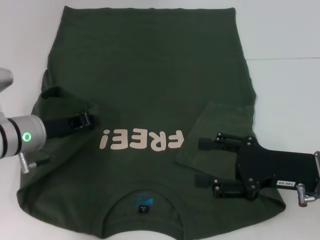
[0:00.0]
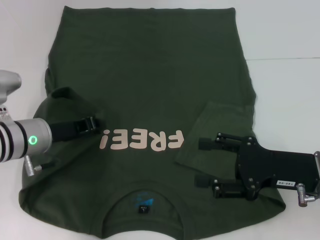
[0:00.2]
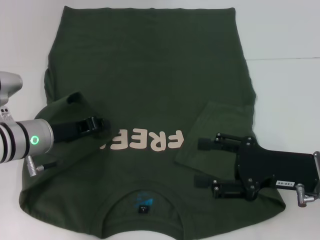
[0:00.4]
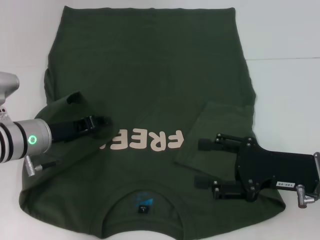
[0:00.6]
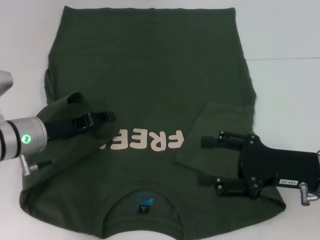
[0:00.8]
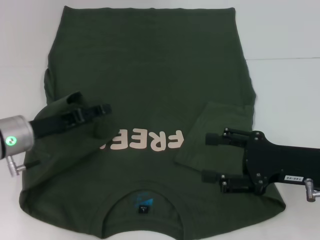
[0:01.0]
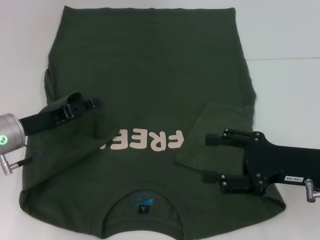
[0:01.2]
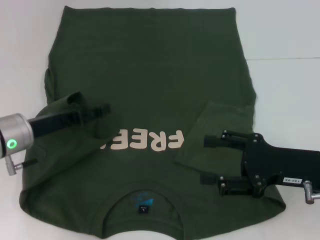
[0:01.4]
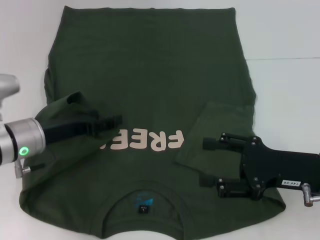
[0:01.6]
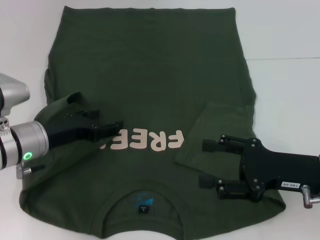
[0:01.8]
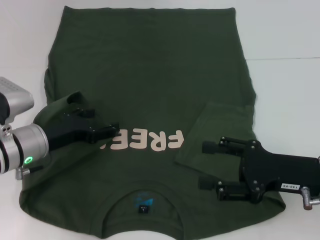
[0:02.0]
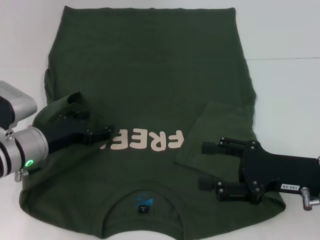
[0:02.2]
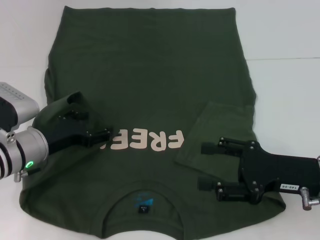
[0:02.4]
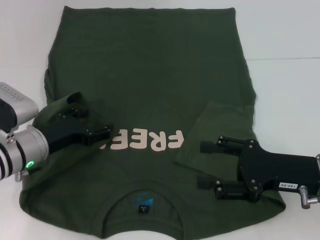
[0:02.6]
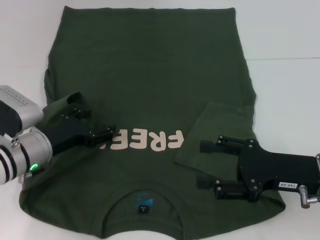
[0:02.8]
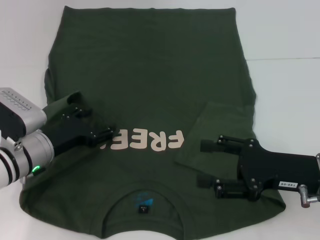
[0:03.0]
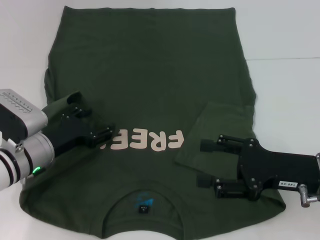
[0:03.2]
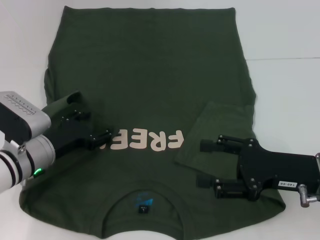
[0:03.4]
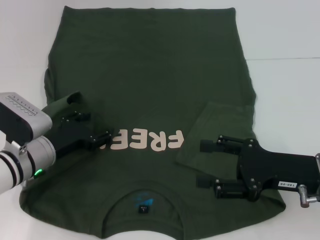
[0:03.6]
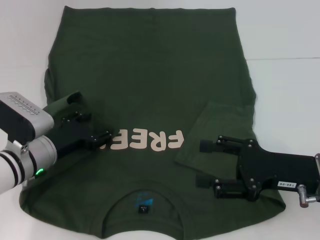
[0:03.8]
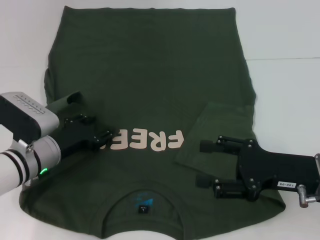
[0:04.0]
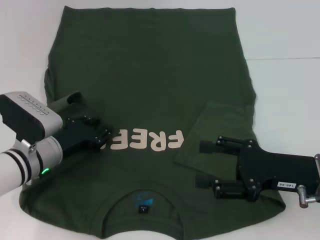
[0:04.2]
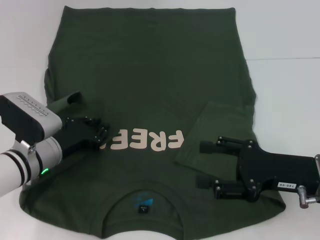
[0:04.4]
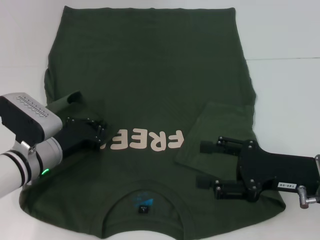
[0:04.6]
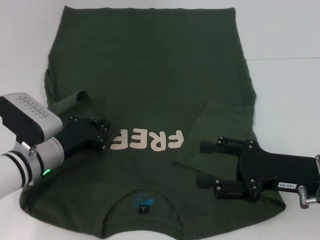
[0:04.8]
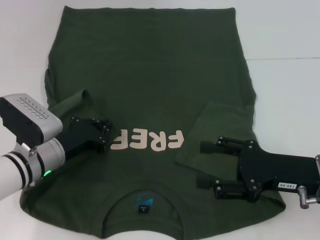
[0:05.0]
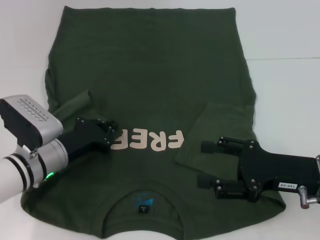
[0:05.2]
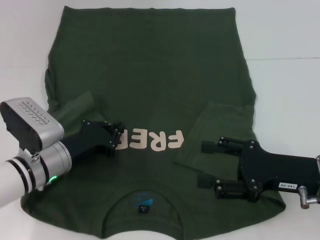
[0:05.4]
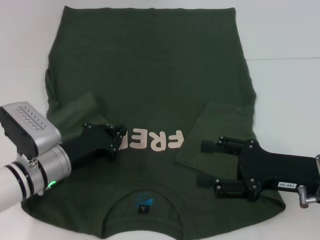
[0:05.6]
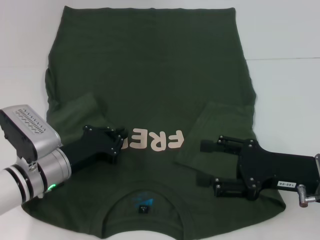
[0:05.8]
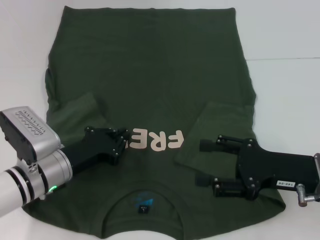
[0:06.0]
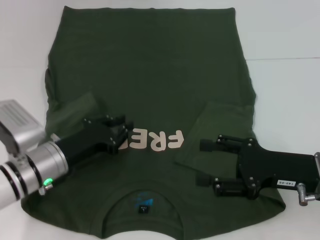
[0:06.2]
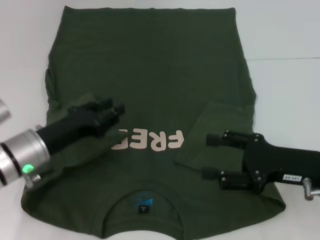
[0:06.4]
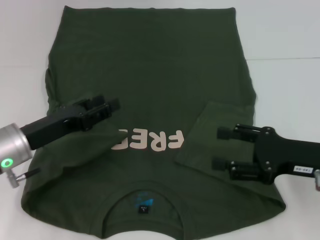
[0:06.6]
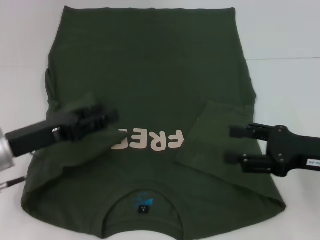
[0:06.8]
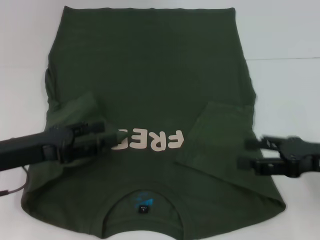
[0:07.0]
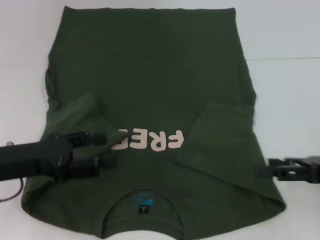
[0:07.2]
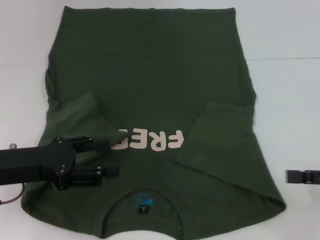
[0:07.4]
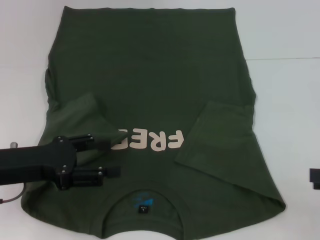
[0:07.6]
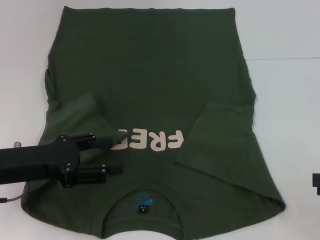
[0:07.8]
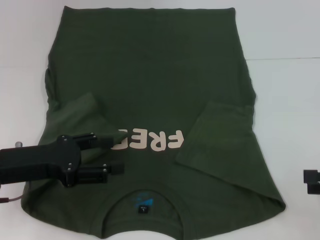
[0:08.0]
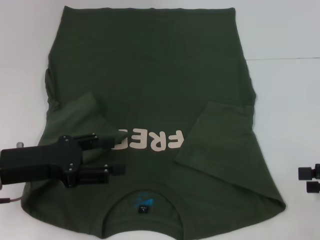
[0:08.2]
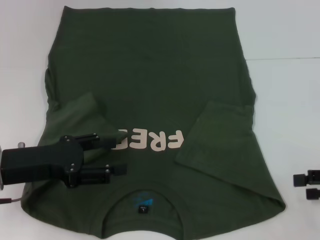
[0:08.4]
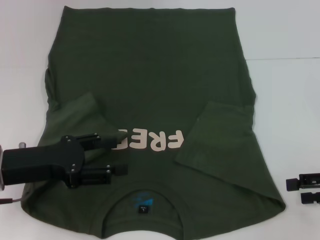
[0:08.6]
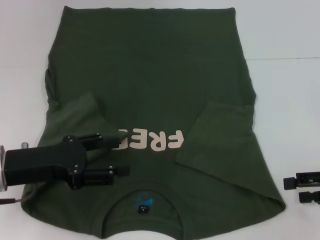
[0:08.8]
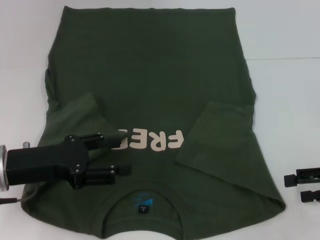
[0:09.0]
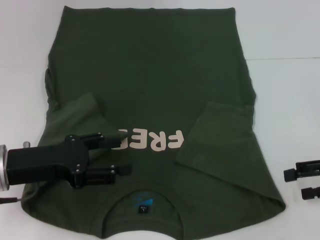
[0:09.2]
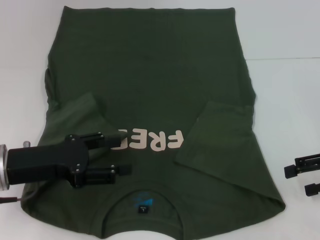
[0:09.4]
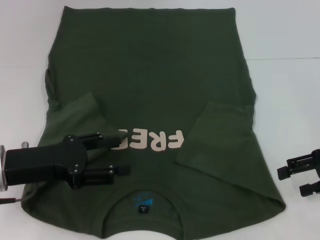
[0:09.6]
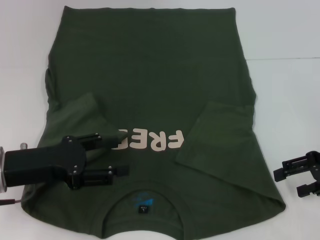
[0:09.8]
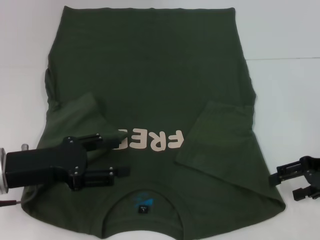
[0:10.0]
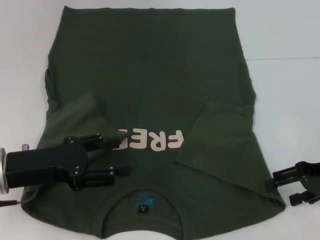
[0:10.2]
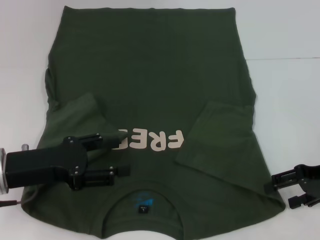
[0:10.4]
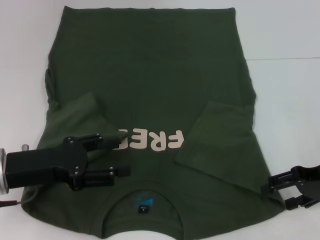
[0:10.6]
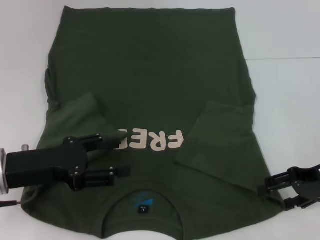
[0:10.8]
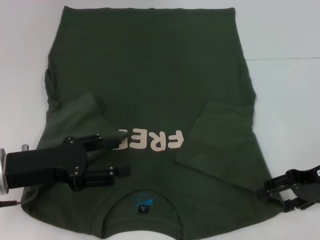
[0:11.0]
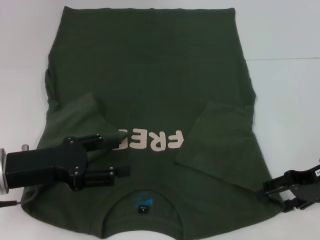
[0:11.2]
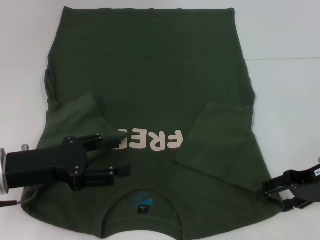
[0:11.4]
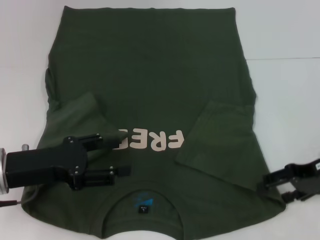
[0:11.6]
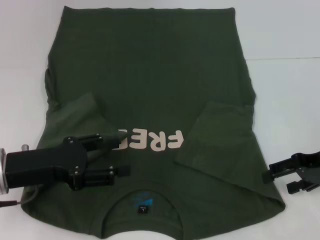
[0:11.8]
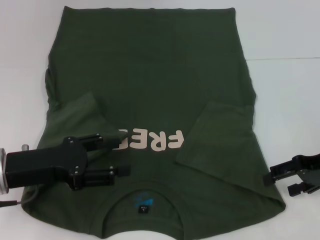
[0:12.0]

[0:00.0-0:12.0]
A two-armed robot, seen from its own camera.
0:00.0 to 0:01.6: The left gripper opens up.
0:03.0 to 0:04.4: The left gripper closes its fingers.
0:04.4 to 0:06.0: The left gripper closes.
0:06.0 to 0:07.6: The left gripper heads upward and to the left, covering approximately 10 cm, and opens, while the right gripper goes some 15 cm to the right.
0:07.6 to 0:09.0: The right gripper heads forward, covering about 5 cm.
0:09.0 to 0:10.4: The right gripper changes place by approximately 5 cm.
0:10.4 to 0:12.0: The grippers make only small movements.

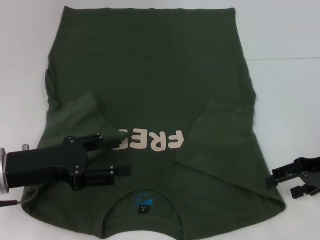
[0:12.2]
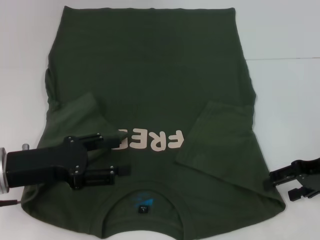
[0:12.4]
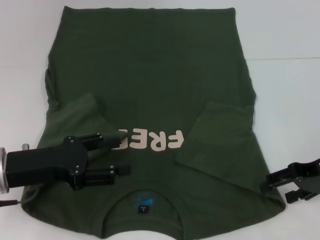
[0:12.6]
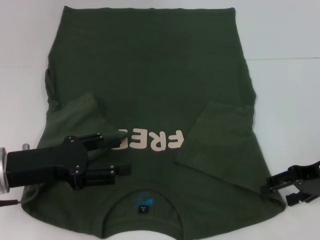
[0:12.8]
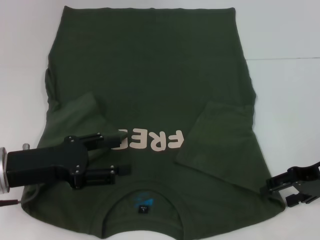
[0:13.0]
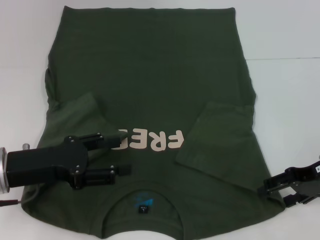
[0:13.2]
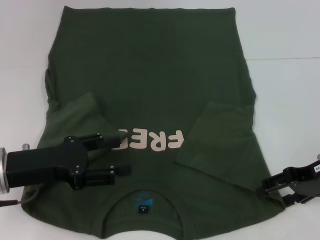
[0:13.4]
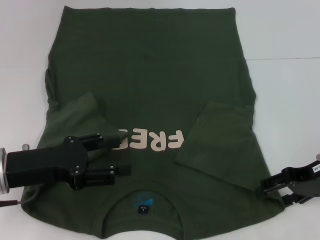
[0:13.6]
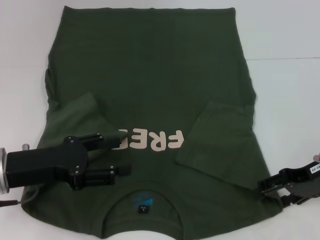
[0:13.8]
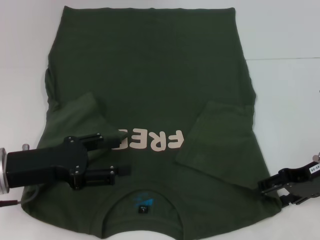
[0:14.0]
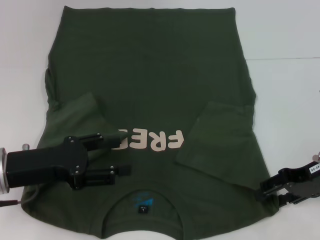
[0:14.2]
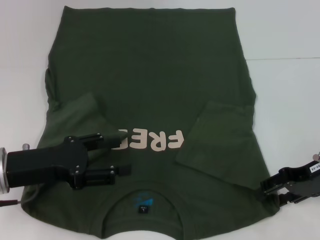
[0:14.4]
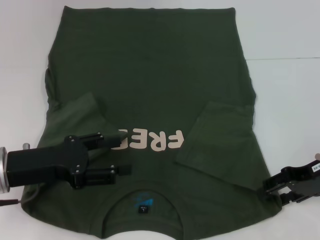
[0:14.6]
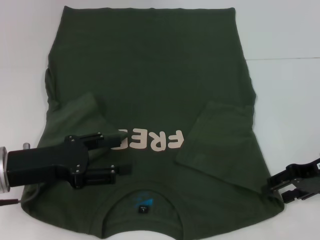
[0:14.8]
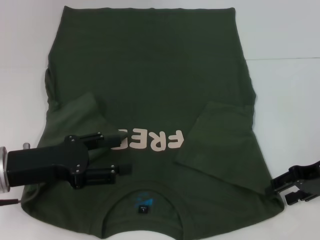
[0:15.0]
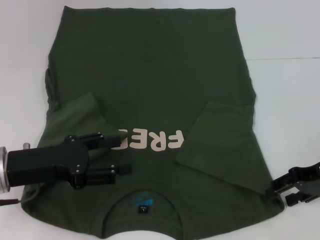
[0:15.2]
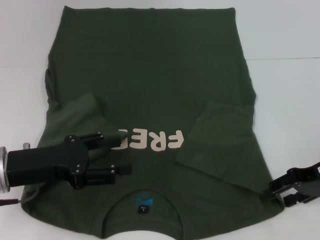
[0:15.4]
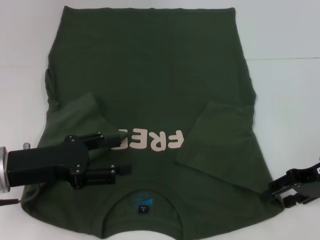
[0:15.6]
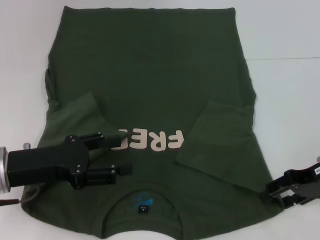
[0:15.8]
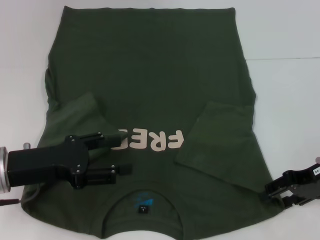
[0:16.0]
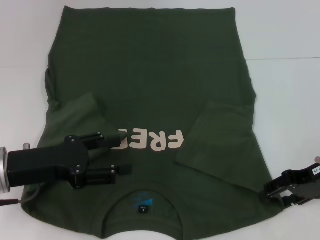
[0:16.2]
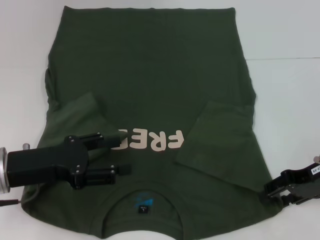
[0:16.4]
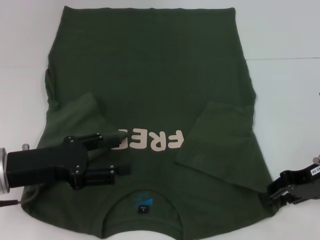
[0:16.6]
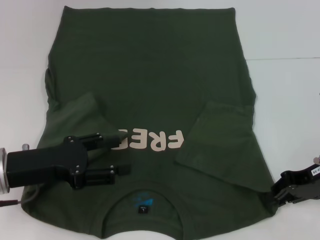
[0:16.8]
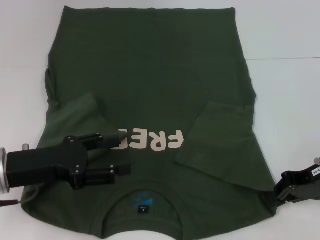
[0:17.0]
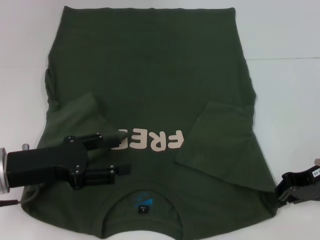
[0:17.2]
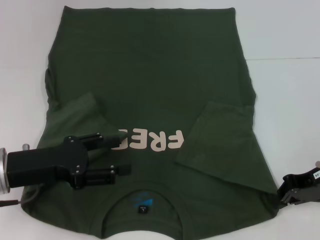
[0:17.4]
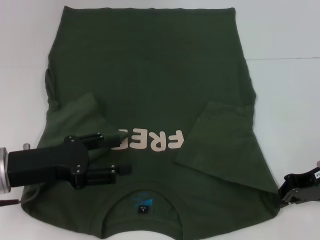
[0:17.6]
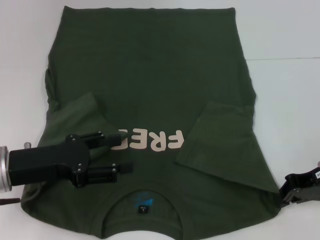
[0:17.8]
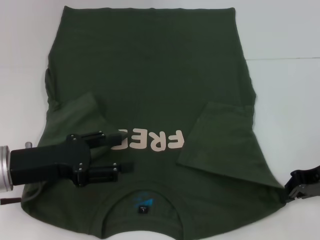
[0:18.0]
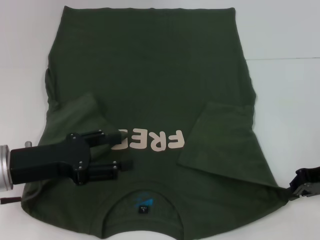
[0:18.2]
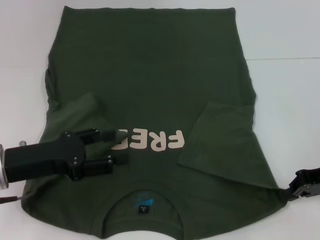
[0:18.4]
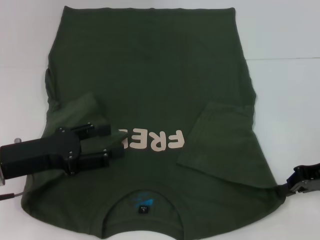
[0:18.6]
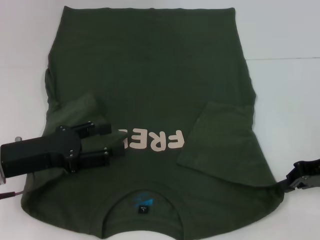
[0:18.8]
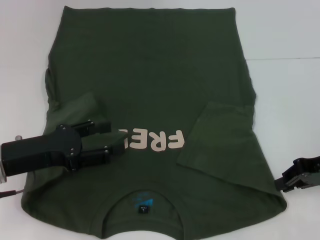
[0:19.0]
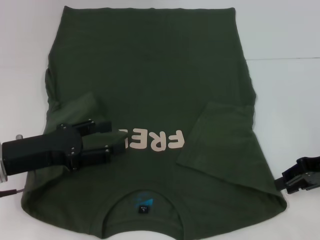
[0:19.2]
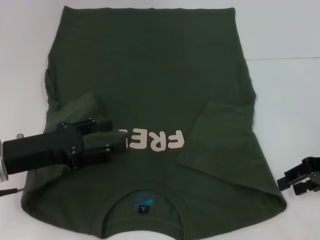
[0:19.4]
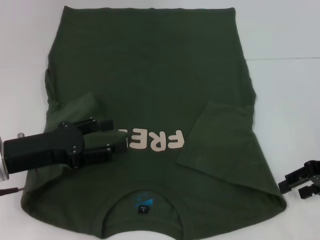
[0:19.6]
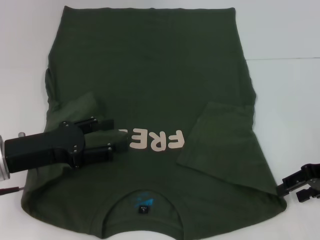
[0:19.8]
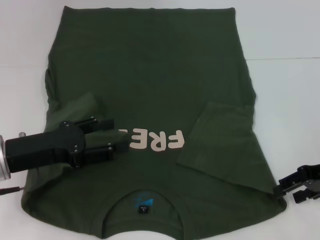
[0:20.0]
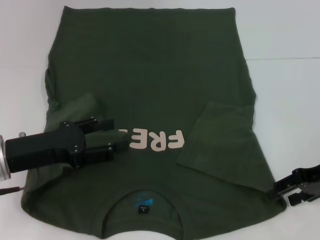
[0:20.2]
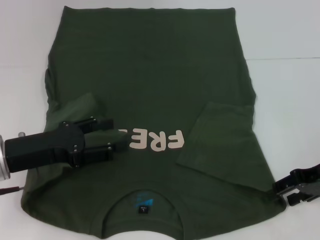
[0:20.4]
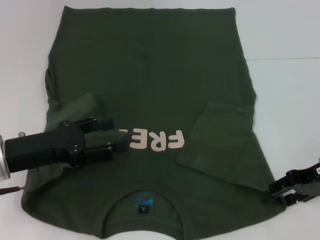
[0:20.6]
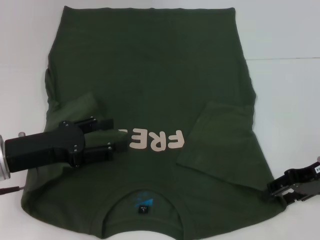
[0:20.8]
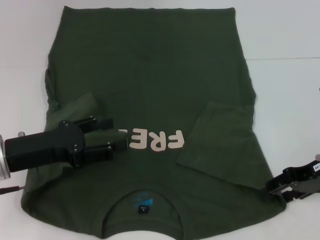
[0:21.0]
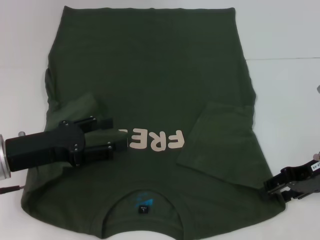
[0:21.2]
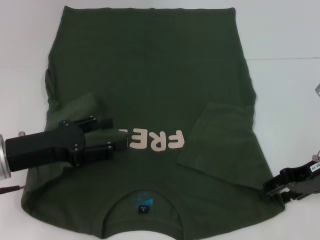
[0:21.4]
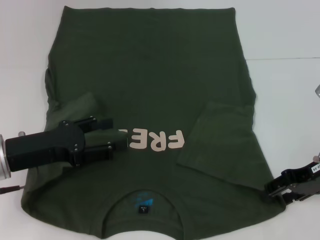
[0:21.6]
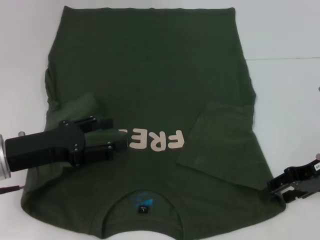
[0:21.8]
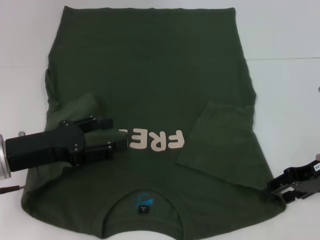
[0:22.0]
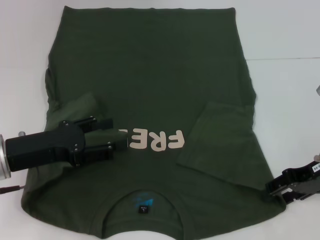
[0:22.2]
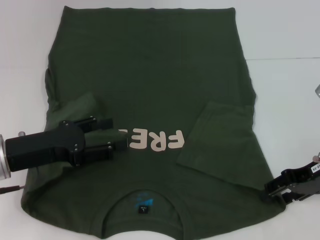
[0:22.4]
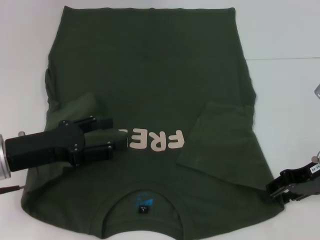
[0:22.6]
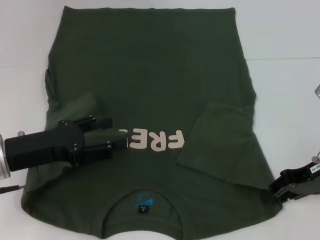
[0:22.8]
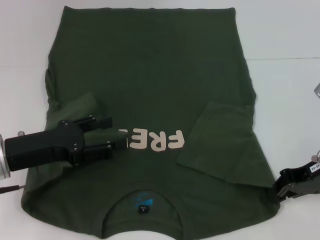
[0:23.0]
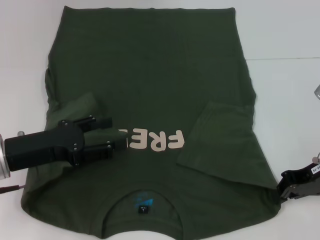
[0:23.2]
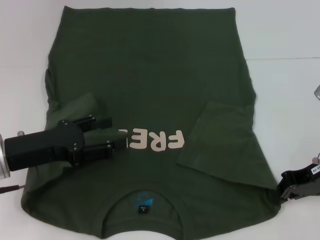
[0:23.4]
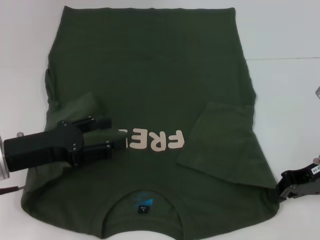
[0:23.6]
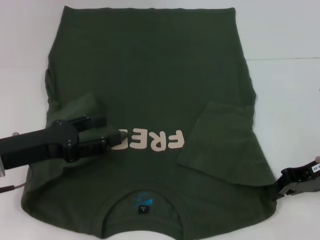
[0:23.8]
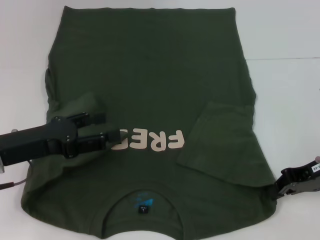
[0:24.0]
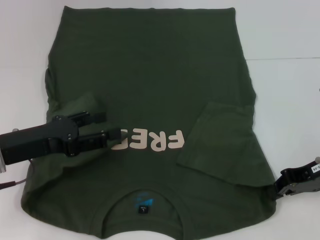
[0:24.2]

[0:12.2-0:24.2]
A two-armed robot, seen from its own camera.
0:12.2 to 0:13.8: There are only small adjustments of the grippers.
0:13.8 to 0:16.6: Both grippers stay about where they are.
0:16.6 to 0:18.2: The right gripper closes up.
0:18.2 to 0:19.8: The right gripper opens.
0:19.8 to 0:21.2: The grippers stay close to where they were, moving slightly.
0:21.2 to 0:22.6: Both grippers stay put.
0:22.6 to 0:24.2: The right gripper closes its fingers.
